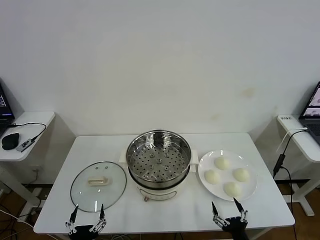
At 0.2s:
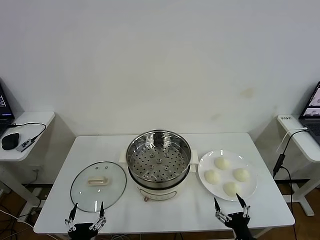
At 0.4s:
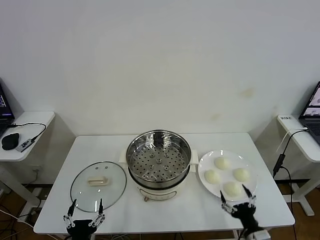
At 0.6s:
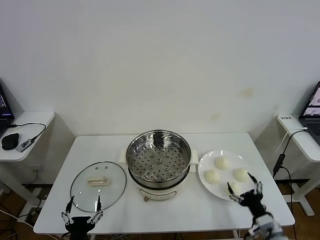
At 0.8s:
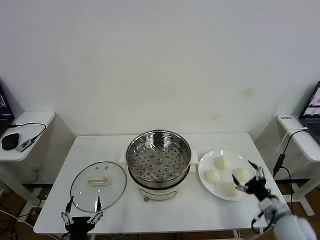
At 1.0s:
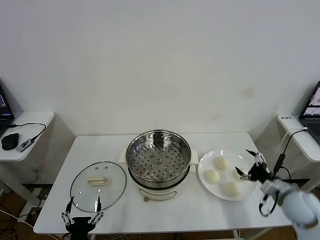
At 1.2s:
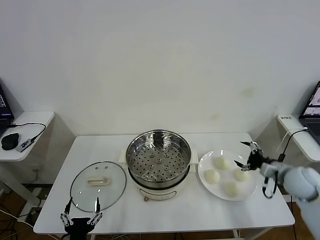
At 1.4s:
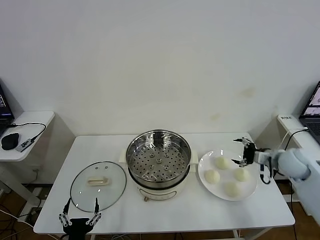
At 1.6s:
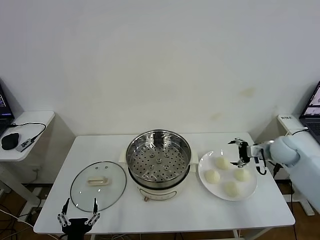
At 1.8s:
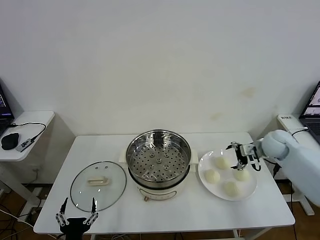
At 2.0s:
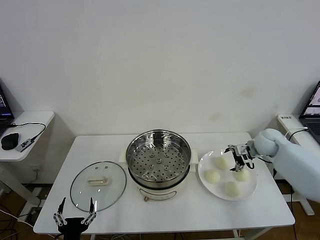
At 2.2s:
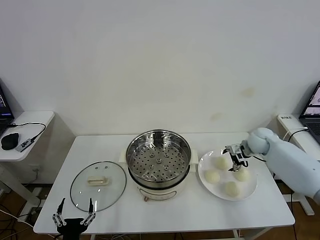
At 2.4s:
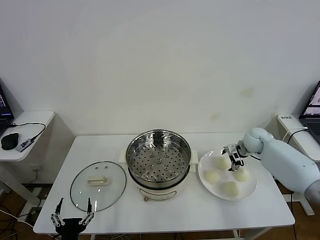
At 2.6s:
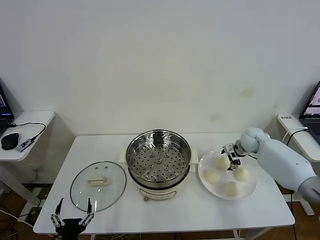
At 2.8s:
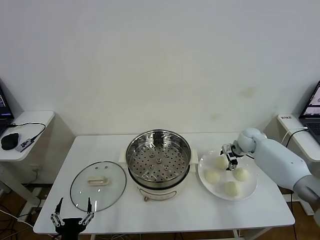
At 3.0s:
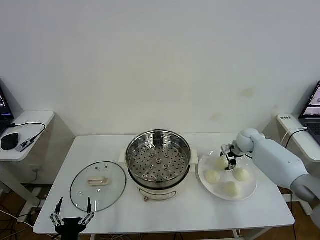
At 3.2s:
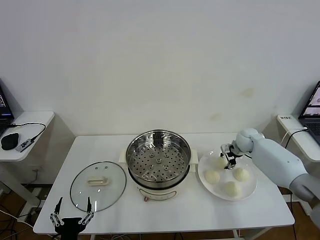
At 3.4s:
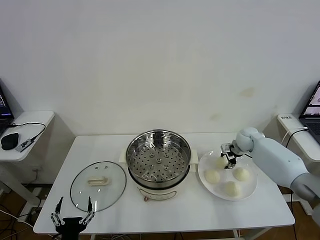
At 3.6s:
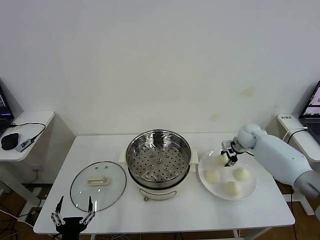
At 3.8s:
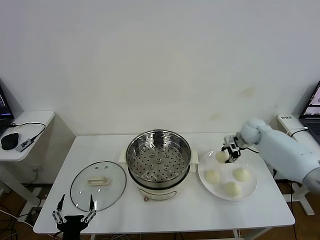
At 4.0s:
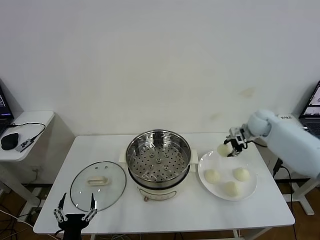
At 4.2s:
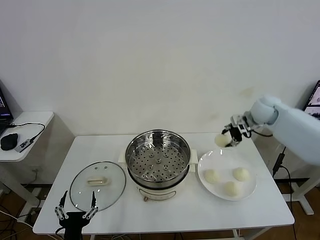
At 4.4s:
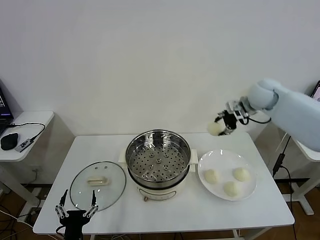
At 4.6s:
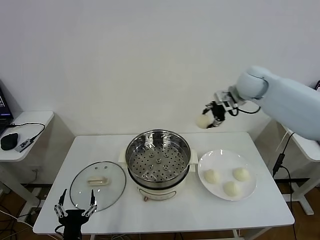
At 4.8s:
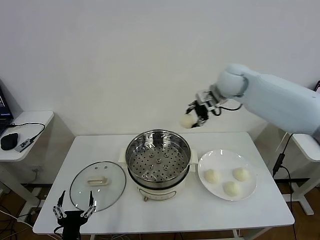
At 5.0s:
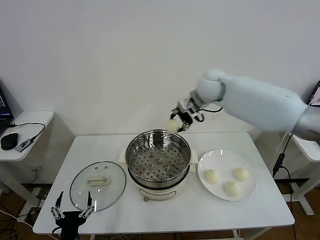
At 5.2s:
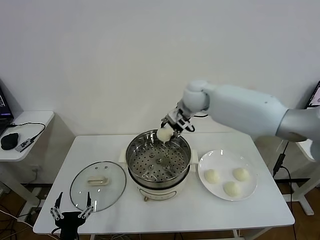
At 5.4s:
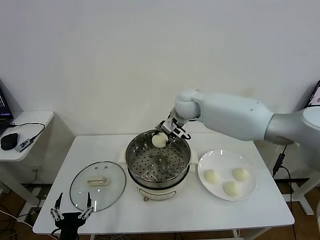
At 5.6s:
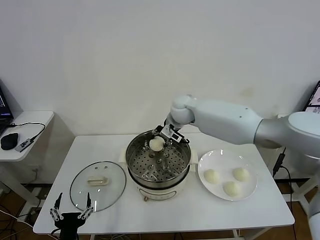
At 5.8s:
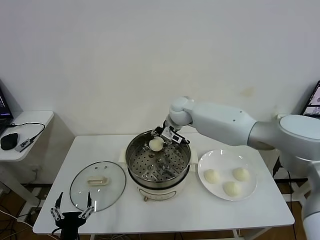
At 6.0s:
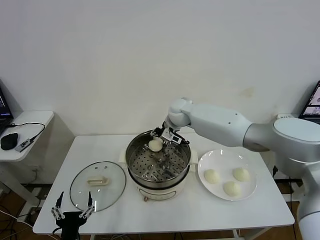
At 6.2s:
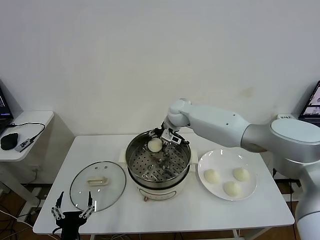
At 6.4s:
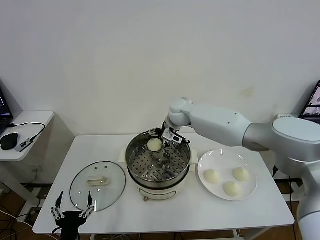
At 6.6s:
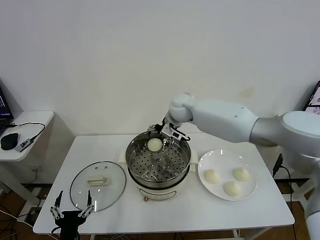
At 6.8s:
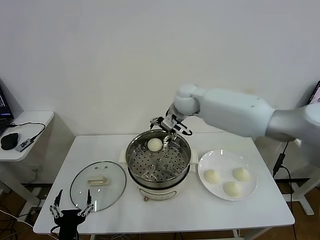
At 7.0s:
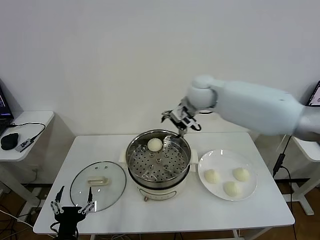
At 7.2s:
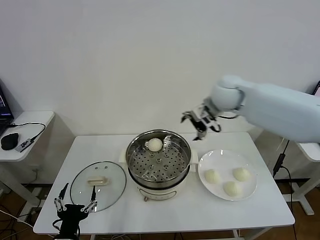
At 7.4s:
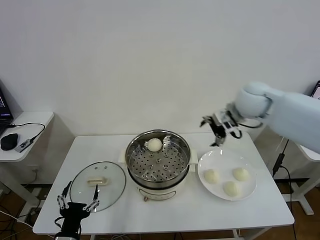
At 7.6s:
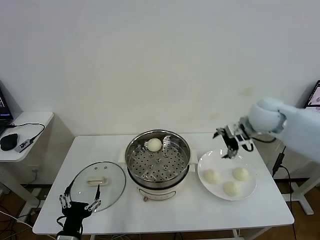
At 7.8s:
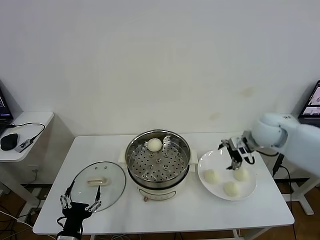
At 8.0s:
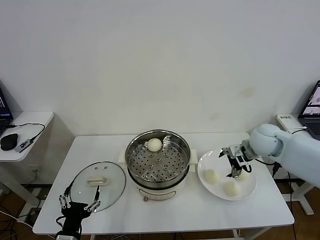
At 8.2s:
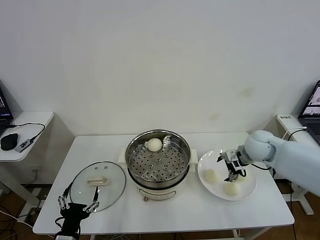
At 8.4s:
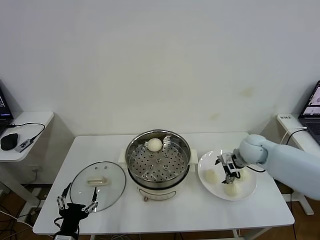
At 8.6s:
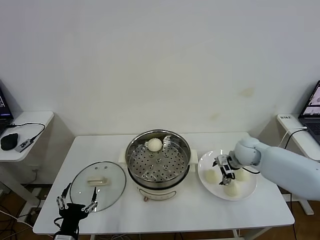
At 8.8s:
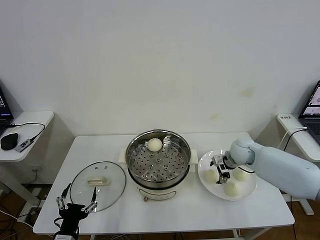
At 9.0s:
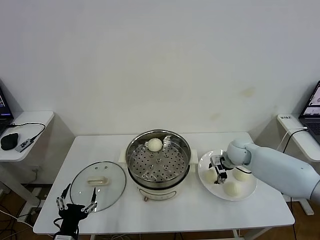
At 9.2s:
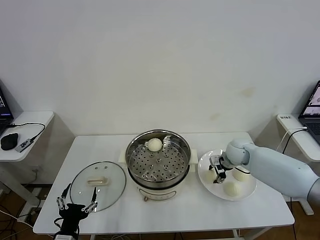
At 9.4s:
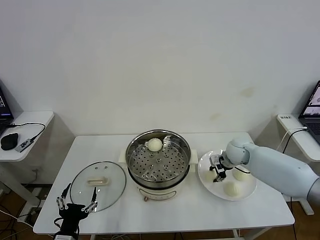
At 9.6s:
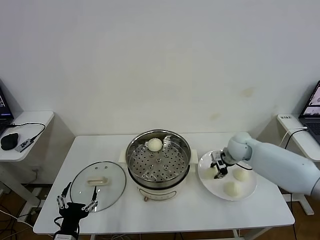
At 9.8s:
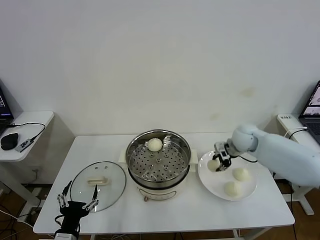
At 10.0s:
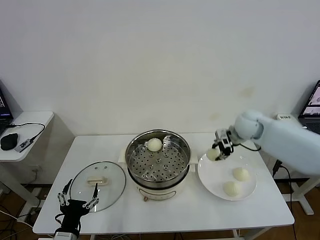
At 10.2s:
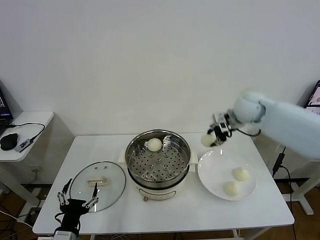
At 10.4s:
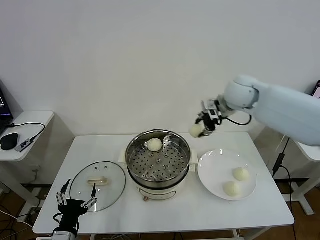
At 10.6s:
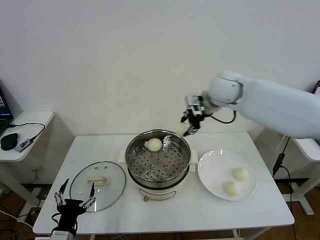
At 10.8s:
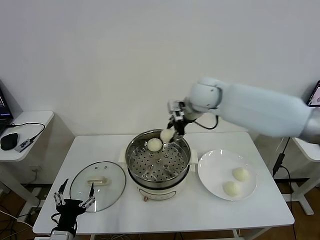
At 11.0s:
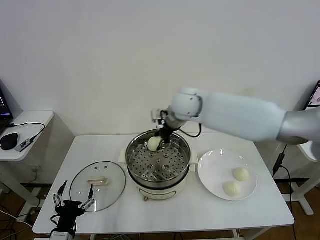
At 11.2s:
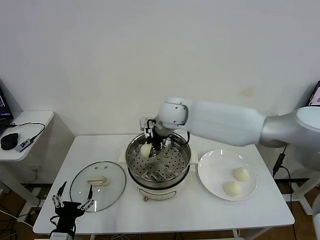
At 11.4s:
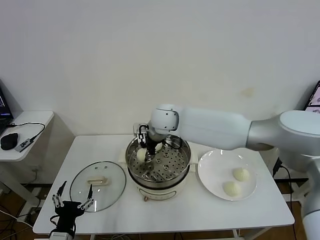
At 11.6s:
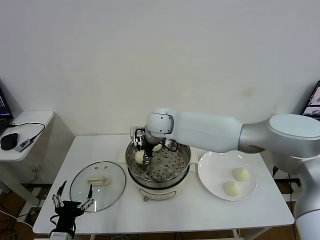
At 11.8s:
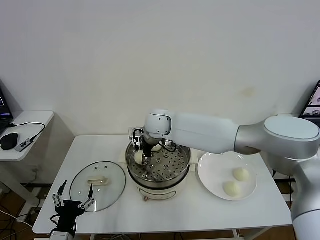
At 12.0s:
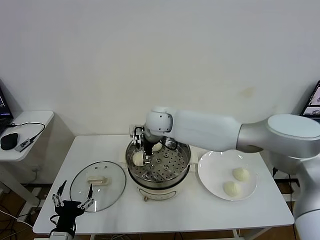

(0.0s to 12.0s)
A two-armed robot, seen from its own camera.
Task of the whole recording: take steamed baozi put them in steamer then cover it.
Step, 0.0s - 3.2s: Grasp the baozi in the plate with right gripper.
Step, 3.4s - 6.2s: Place the baozi on the steamer with right gripper.
Step, 6.4s - 9.4s: Grasp the baozi in the plate with right gripper.
Step, 9.6s - 12.0s: Place the baozi on the steamer with right gripper.
1.6s - 3.0s: The right gripper heads forward, downward and to the left, covering about 15 cm, and closes.
3.0s - 4.4s: The right gripper moves upward, about 25 cm.
4.4s - 6.0s: The right gripper is displaced to the left and downward by about 25 cm.
6.0s - 7.6s: The right gripper shifts roughly 30 cm to the right and backward, and opens its fingers.
7.6s - 9.0s: The right gripper is displaced downward by roughly 15 cm, and closes.
9.0s - 10.4s: The right gripper heads upward, covering about 25 cm, and closes its fingers.
10.4s - 12.0s: The right gripper heads to the left and downward, covering roughly 25 cm, and opens up.

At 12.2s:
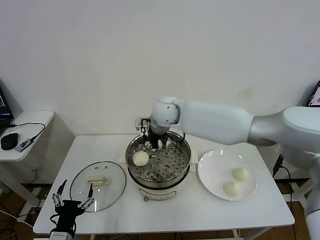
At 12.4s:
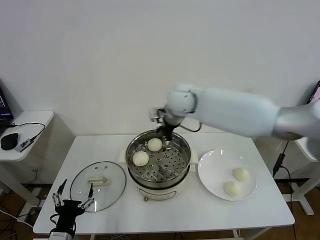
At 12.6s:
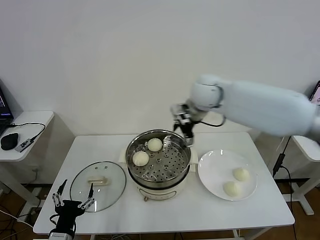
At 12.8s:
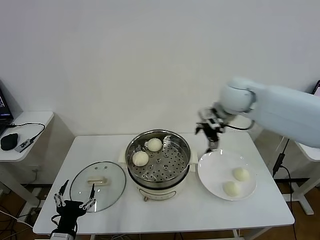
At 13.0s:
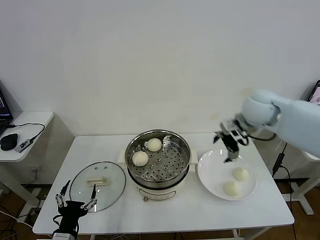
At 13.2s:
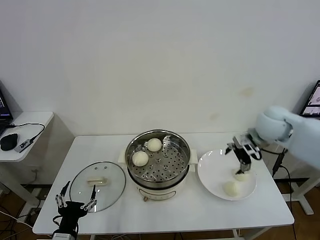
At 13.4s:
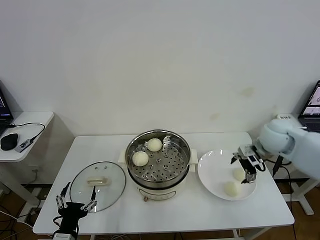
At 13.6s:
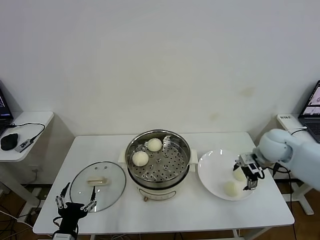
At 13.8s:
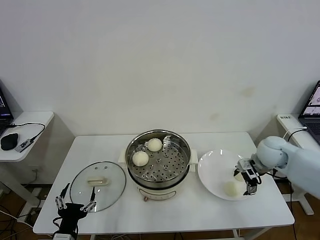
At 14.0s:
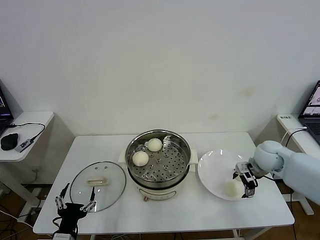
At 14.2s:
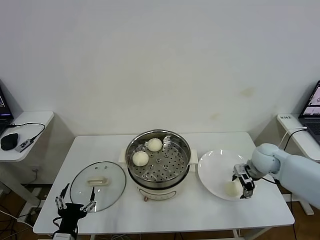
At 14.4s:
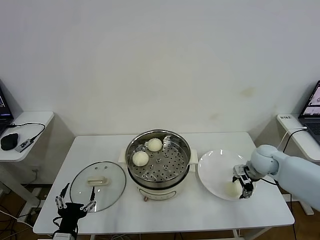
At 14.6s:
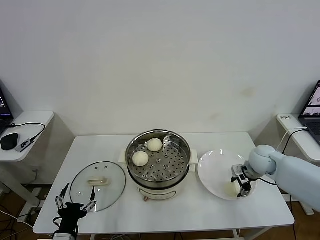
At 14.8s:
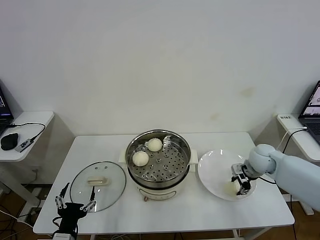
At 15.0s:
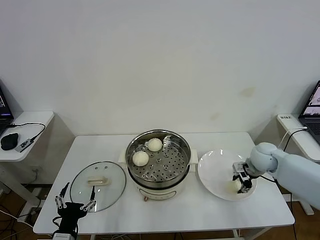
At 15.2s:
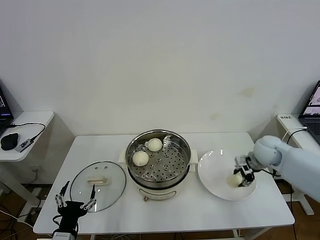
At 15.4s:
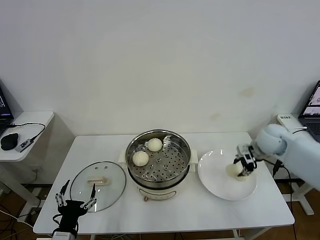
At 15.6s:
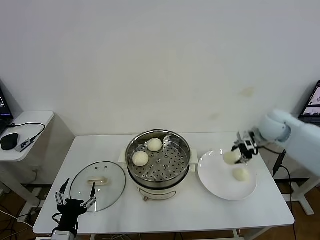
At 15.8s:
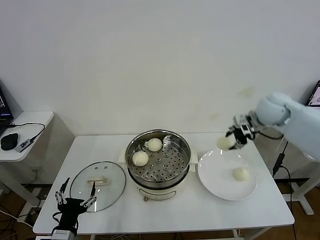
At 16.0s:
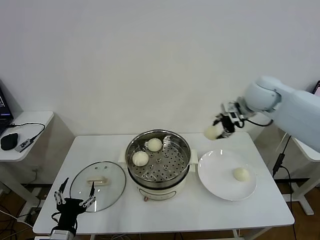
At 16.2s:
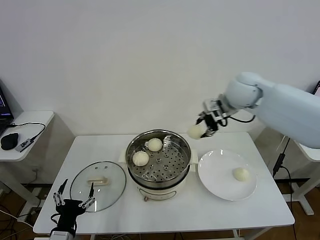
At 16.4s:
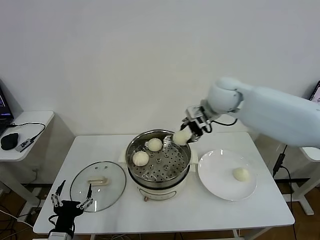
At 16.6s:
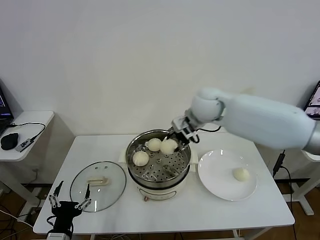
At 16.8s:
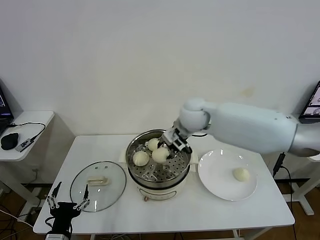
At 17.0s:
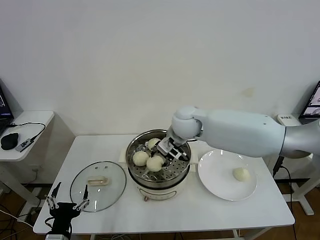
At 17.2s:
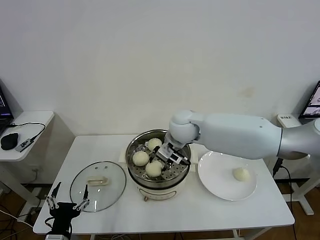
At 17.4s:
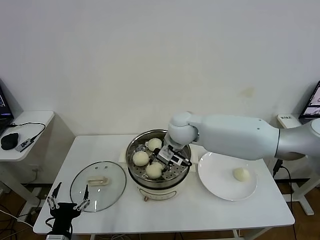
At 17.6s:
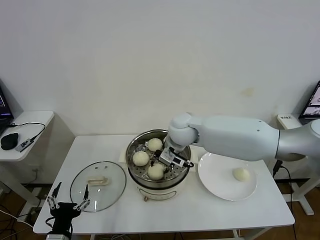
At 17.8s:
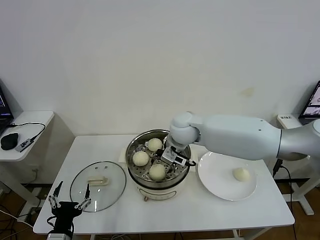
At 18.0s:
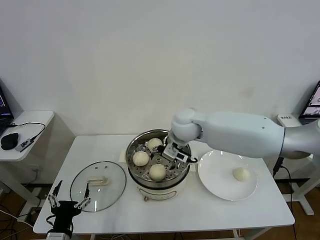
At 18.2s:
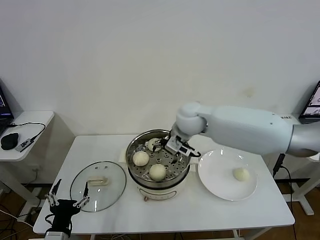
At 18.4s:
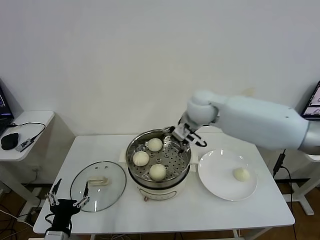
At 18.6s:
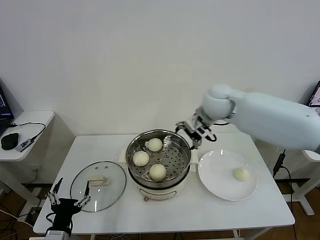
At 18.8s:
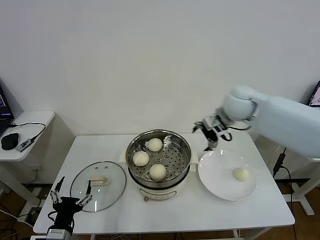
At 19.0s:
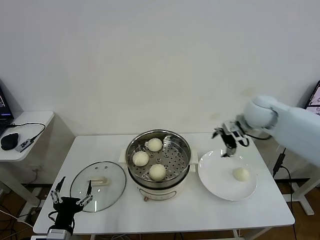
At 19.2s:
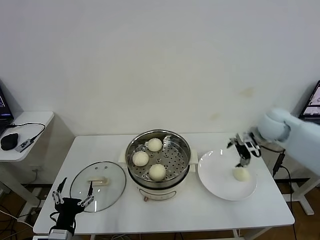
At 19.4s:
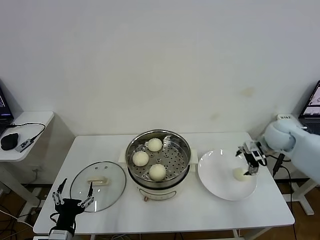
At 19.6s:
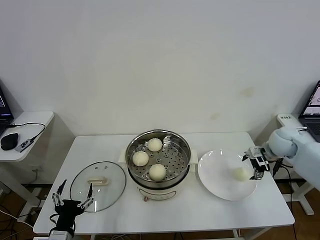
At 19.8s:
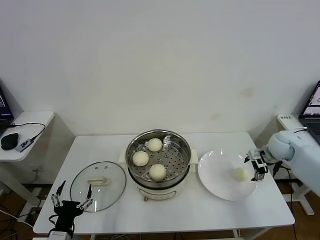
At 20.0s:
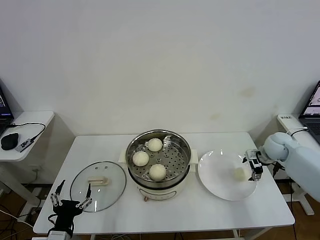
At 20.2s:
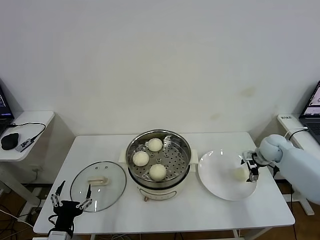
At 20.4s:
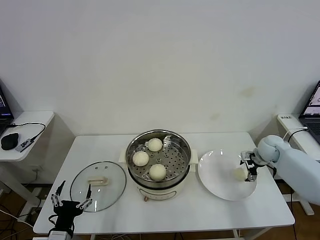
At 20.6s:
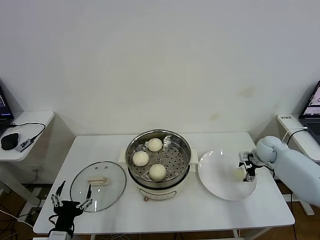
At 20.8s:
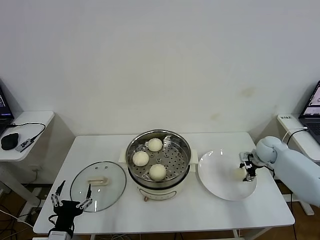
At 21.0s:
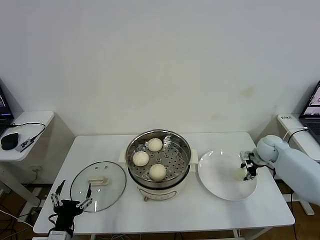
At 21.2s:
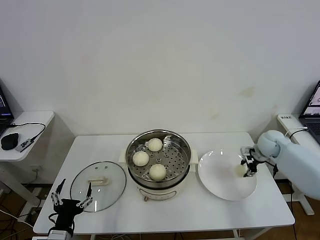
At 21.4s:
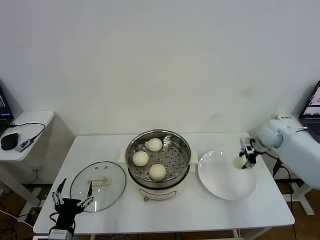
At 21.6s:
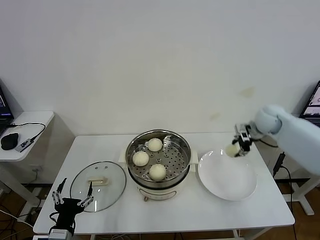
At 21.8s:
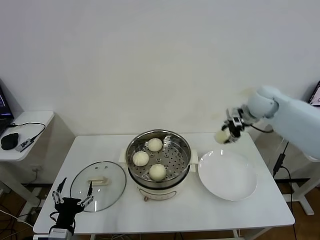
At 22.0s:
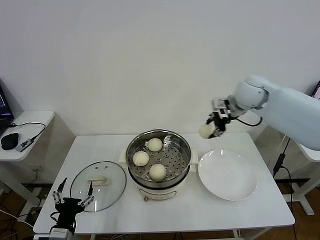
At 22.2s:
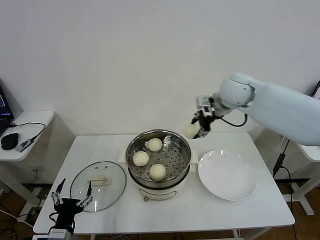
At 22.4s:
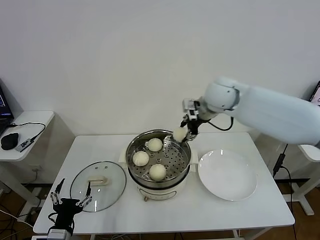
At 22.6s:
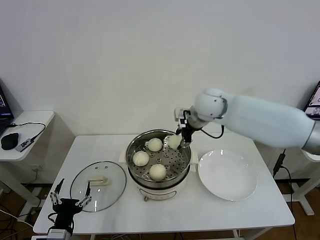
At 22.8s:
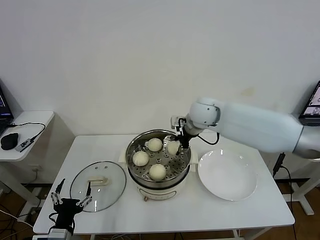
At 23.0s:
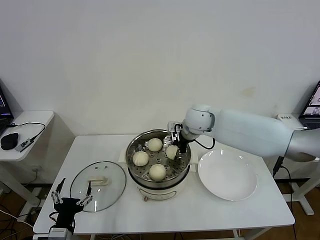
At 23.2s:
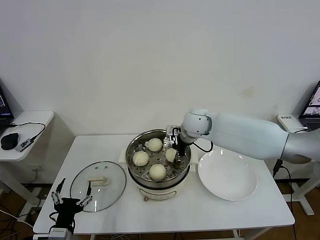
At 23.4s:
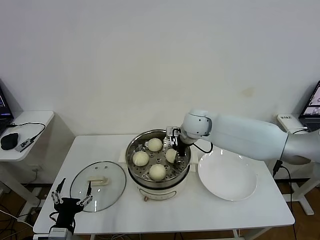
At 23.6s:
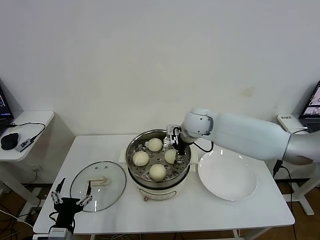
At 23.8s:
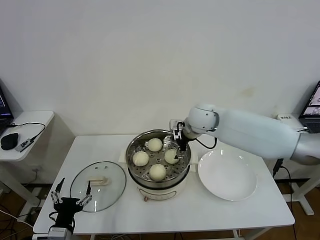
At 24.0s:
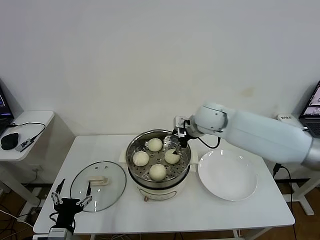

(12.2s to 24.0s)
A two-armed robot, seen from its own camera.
Task of the whole recording: take steamed baozi put them in steamer then cover it.
Step, 12.2s - 14.8s: Grasp the baozi in the plate with right gripper.
Step, 15.0s - 17.8s: Place the baozi on the steamer with right gripper.
Step, 18.0s - 20.8s: Grasp the baozi in the plate with right gripper.
Step, 21.2s - 23.6s: Place the baozi on the steamer with right gripper.
12.2s - 13.6s: The right gripper is displaced to the right by some 35 cm.
13.6s - 15.2s: The right gripper closes.
15.2s - 16.6s: The right gripper heads to the left and upward, covering roughly 30 cm.
16.6s - 18.2s: The right gripper opens its fingers.
18.2s - 19.6s: The right gripper travels to the right by roughly 30 cm.
19.6s - 21.0s: The right gripper heads downward, covering roughly 5 cm, and closes its fingers.
21.0s - 22.6s: The right gripper goes about 35 cm to the left and upward.
22.6s - 24.0s: The right gripper opens its fingers.
